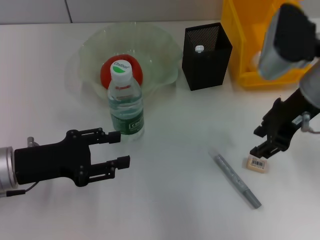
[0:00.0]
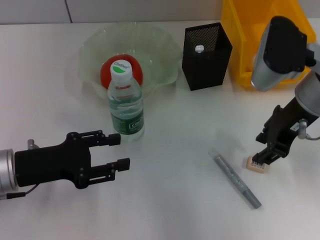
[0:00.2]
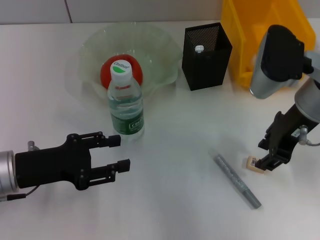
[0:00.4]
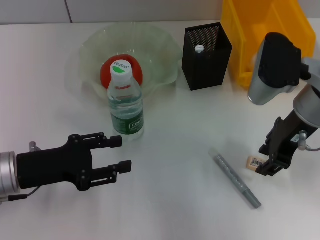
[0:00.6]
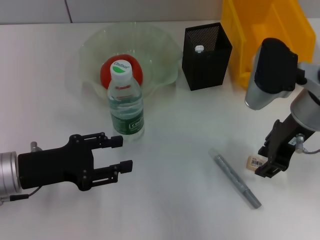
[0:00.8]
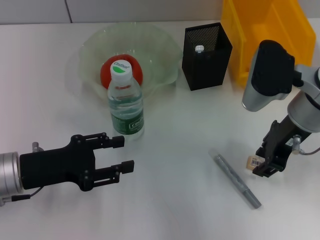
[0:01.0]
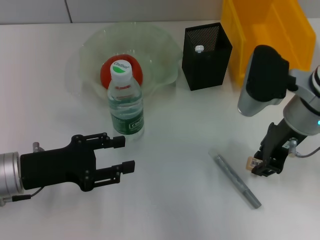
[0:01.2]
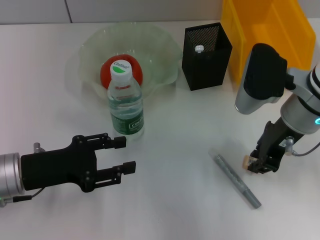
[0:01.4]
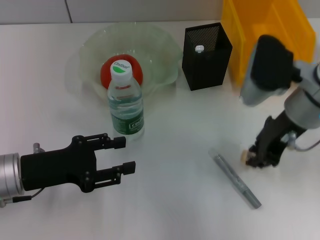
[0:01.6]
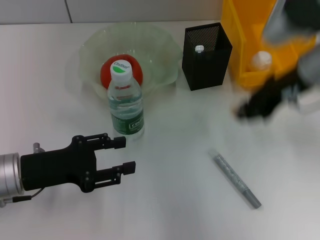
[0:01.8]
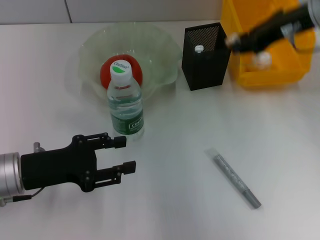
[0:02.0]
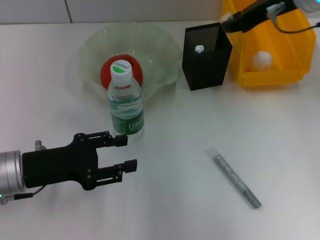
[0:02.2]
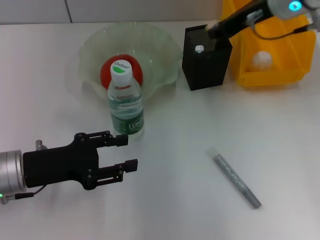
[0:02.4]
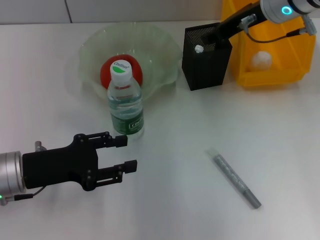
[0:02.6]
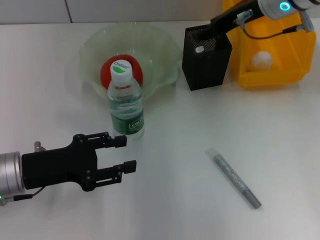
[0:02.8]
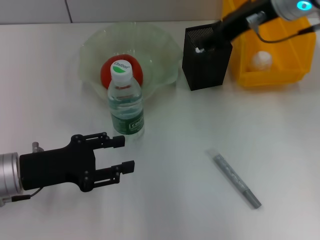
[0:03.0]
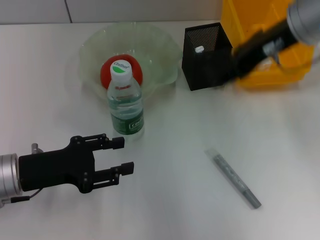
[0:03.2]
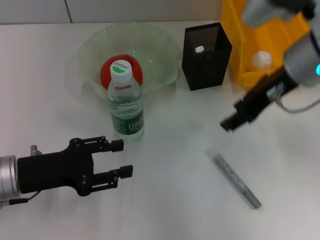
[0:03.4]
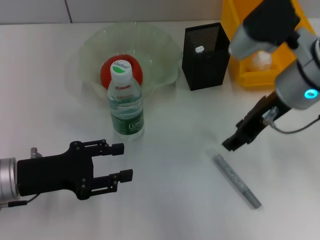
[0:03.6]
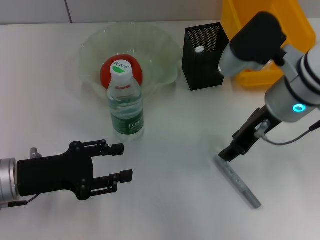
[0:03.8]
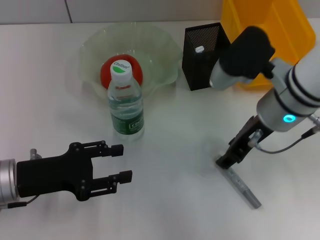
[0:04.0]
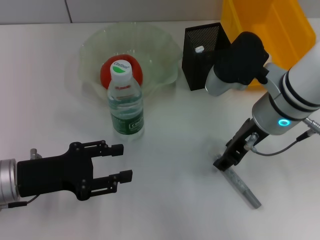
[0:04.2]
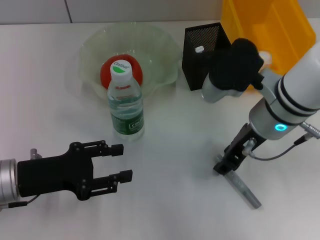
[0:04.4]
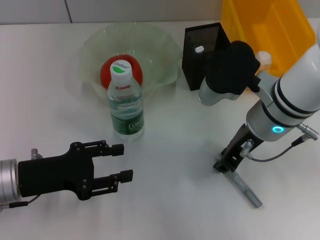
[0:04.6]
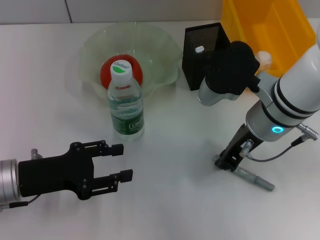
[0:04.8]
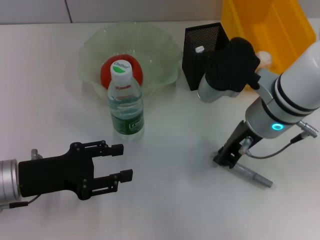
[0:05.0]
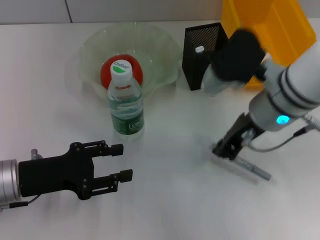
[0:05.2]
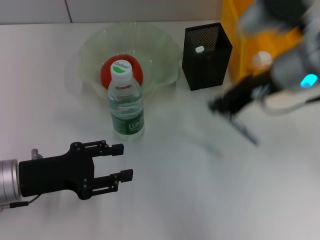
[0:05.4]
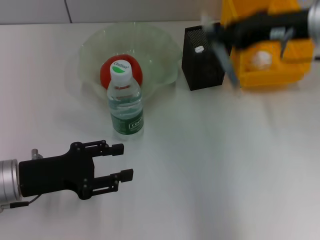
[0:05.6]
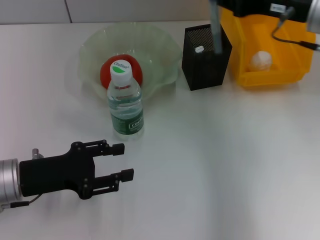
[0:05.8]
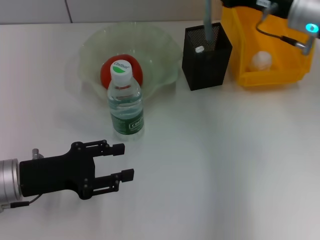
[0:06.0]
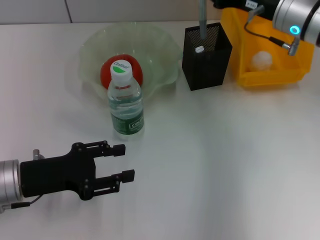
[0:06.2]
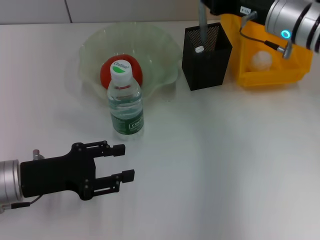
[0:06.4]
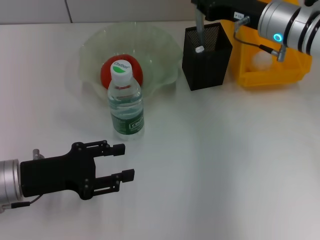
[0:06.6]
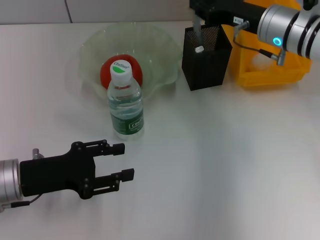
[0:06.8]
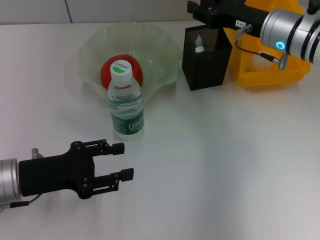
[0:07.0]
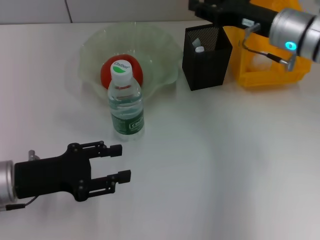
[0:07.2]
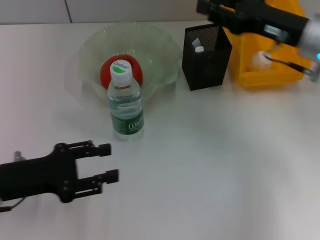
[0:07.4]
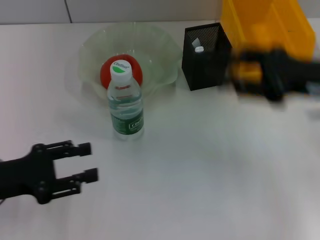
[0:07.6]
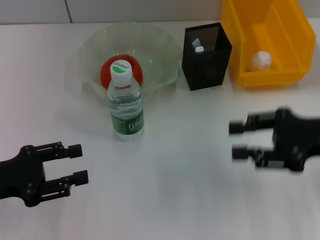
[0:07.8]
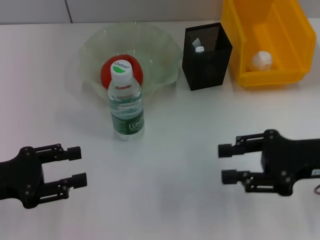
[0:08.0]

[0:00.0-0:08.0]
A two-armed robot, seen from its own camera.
Step, 0:01.4 to 0:02.8: Put the eraser into the pen holder with the right hand.
Step, 0:03.0 to 0:04.6: Grab the gray glue with the right hand.
Step, 0:04.8 to 0:06.8: Place the gray glue into the pen holder with the right hand.
0:00.0 to 0:01.6: The right gripper closes.
0:01.6 to 0:03.2: The right gripper travels upward by approximately 10 cm, and opens its fingers.
0:03.2 to 0:04.8: The right gripper goes approximately 10 cm downward and backward, and closes.
0:04.8 to 0:06.4: The right gripper goes about 10 cm forward and to the right.
0:06.4 to 0:08.0: The left gripper is displaced to the left by approximately 5 cm; the right gripper moves backward and to the right, approximately 20 cm, and opens up.

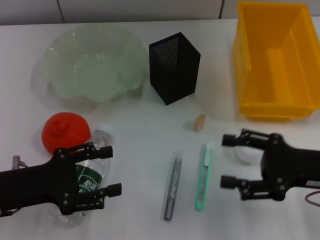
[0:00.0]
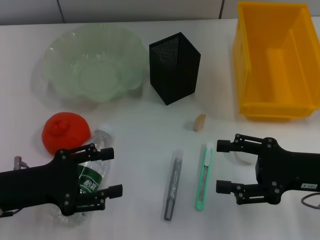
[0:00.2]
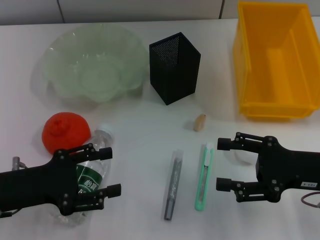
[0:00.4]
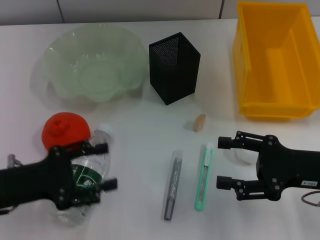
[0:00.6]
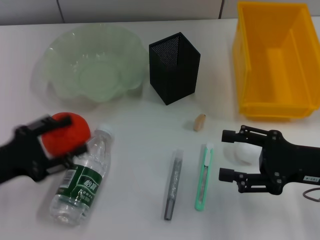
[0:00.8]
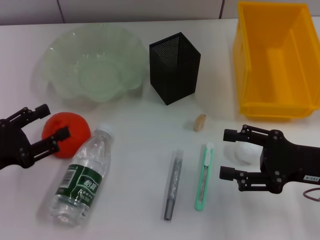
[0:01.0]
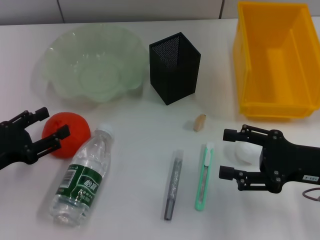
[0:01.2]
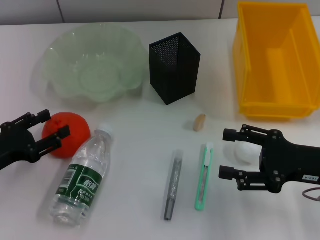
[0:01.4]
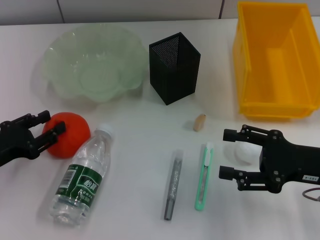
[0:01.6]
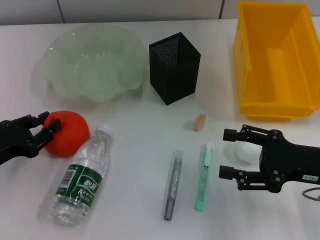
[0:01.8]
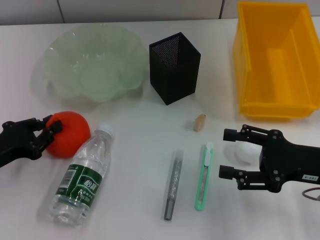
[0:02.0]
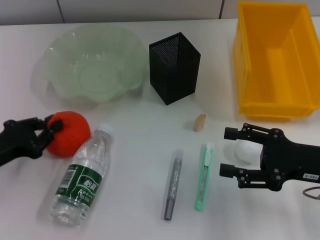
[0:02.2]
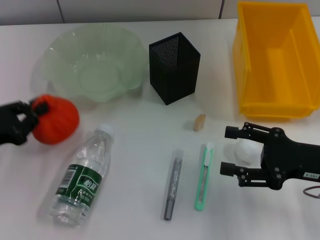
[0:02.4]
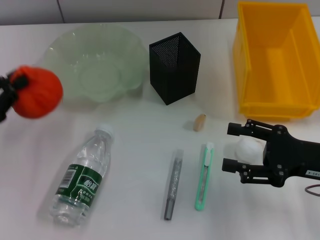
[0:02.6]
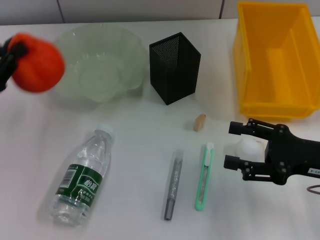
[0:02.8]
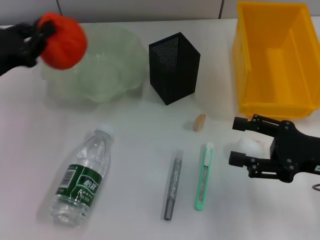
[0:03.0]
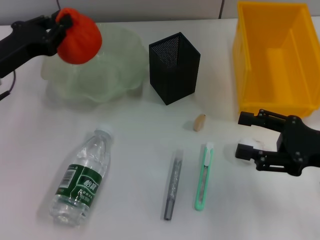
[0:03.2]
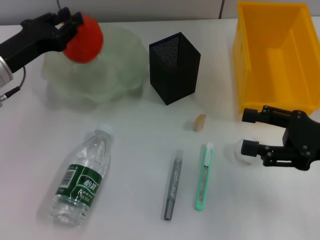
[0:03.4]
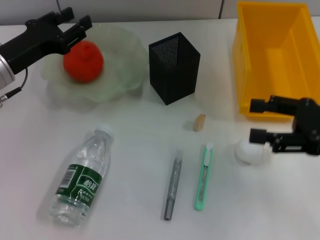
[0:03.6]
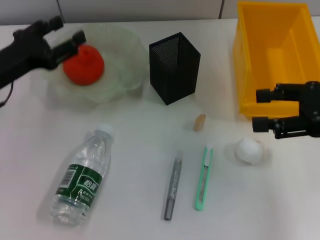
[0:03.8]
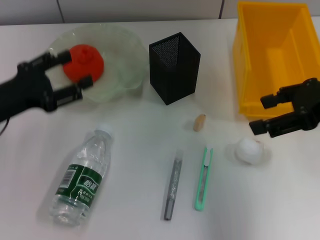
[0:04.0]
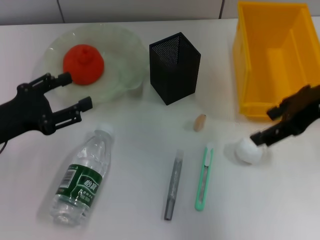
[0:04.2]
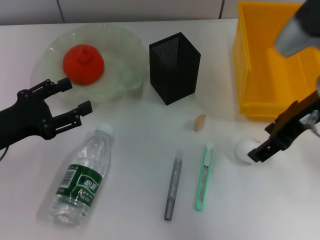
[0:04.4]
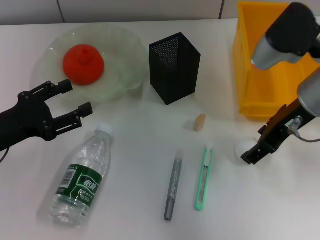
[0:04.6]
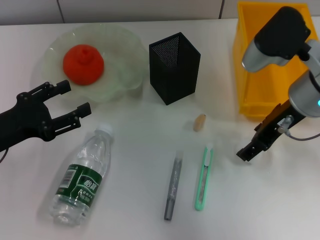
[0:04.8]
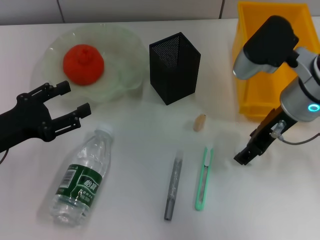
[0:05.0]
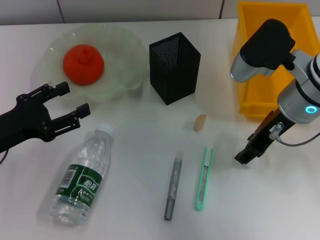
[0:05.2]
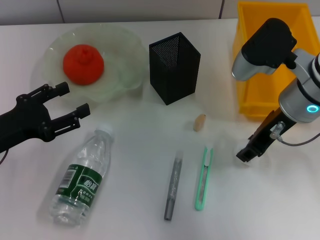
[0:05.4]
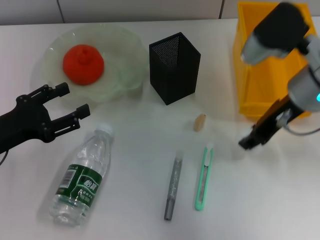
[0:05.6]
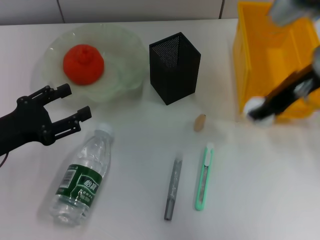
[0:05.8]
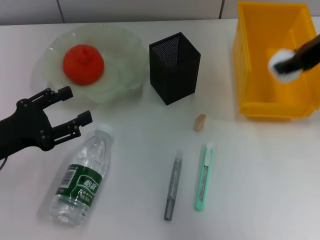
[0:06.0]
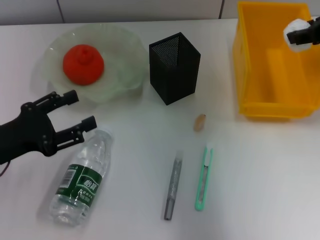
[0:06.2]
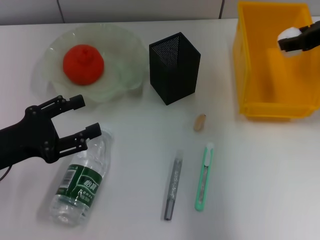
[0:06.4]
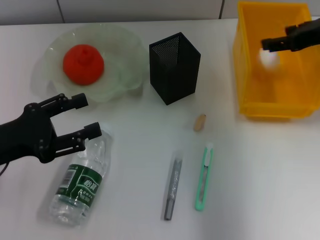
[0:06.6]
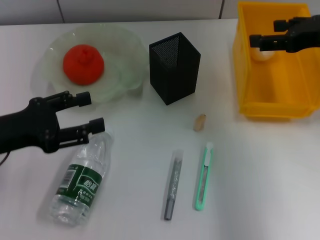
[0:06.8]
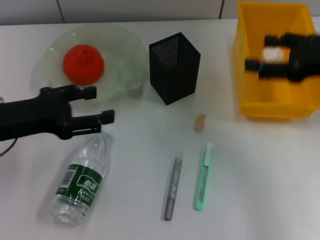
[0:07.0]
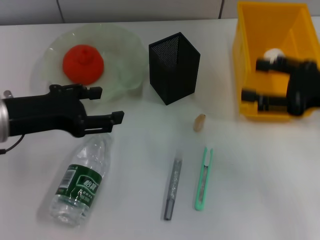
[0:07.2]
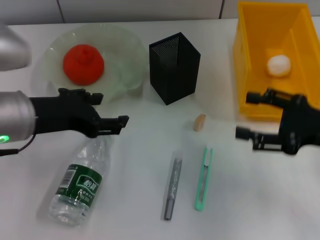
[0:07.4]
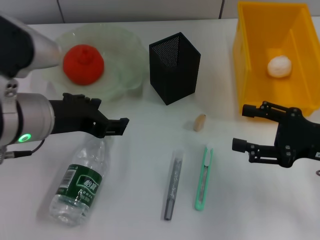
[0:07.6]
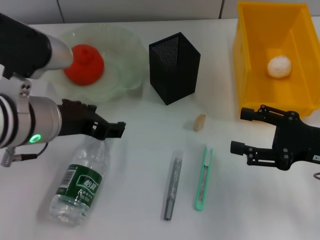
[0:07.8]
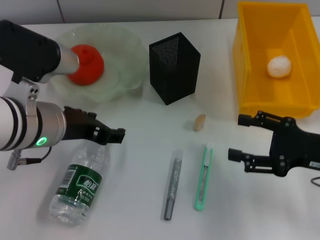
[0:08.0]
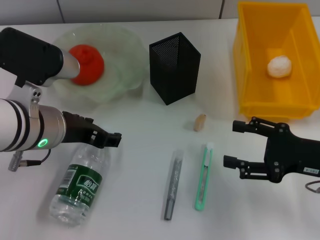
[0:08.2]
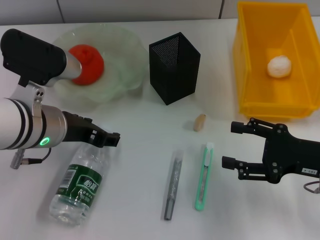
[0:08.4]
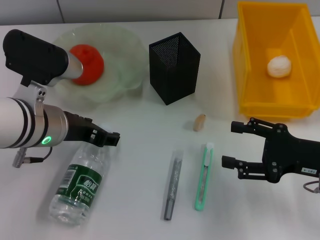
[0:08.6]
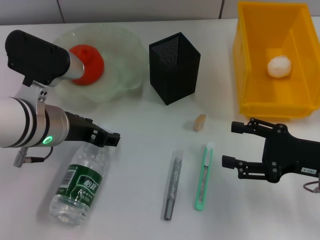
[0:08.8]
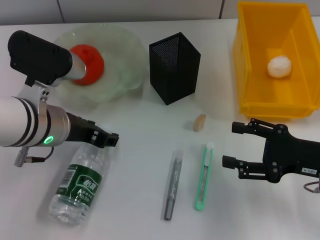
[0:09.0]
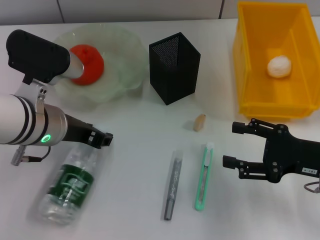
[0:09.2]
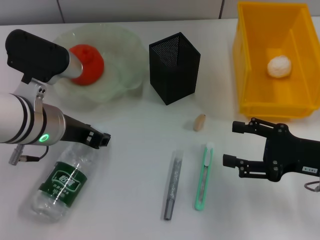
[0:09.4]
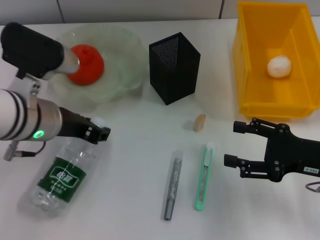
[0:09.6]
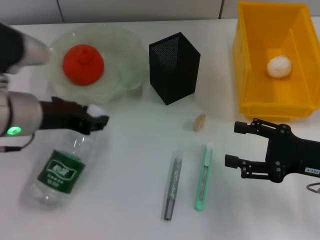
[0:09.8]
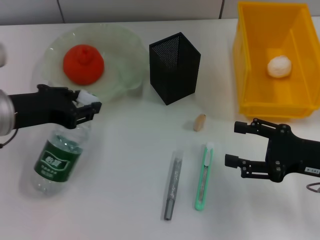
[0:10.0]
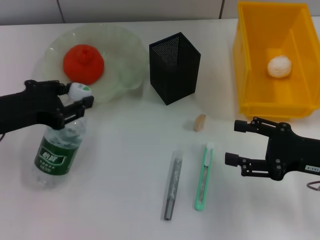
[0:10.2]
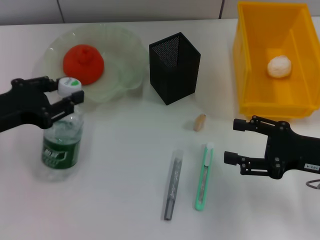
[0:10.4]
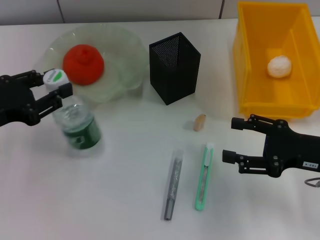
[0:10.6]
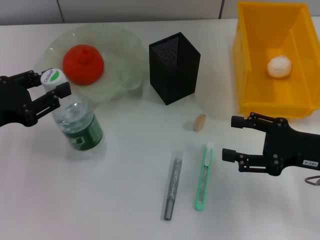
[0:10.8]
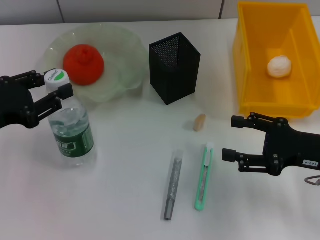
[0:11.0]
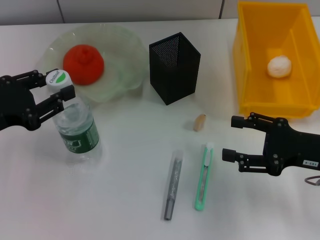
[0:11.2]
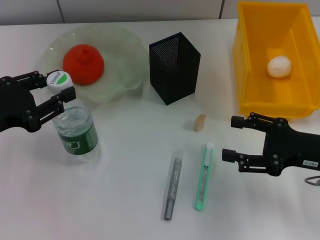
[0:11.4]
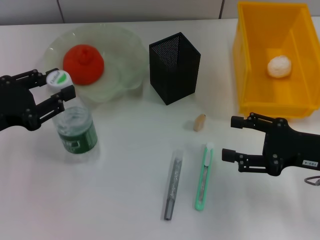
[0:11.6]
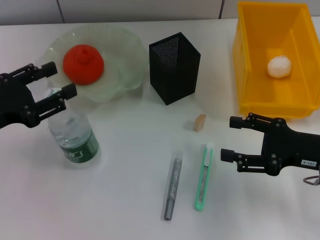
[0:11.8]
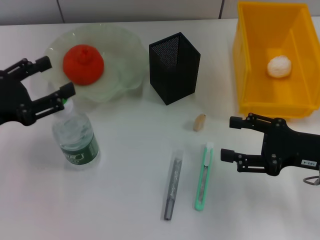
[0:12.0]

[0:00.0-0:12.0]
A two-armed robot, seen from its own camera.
Step, 0:00.0 to 0:02.0: Grab the orange with the left hand.
Step, 0:02.2 to 0:03.6: Place the orange into the fruit bowl with the left hand.
Step, 0:04.0 to 0:05.2: Grab the paper ball with the right hand.
Step, 0:05.4 to 0:06.8: Place the paper ball into the trash can with the right hand.
Step, 0:07.0 to 0:09.2: Grab the water bottle with the left hand.
0:00.0 to 0:01.6: The left gripper shifts some 5 cm to the left.
0:01.6 to 0:03.0: The left gripper is displaced forward and upward by about 10 cm, and closes up.
0:03.0 to 0:04.4: The left gripper heads backward, covering roughly 5 cm, and opens up, while the right gripper heads upward, forward and to the left, covering roughly 15 cm.
0:04.4 to 0:06.0: The right gripper heads upward, covering some 5 cm, and closes up.
0:06.0 to 0:07.6: The left gripper goes roughly 15 cm to the right and upward. The right gripper travels downward and backward by some 20 cm, and opens up.
0:07.6 to 0:09.0: The left gripper shifts by roughly 5 cm.
0:09.0 to 0:10.4: The left gripper heads to the left, covering about 10 cm, and closes up.
0:10.4 to 0:12.0: The left gripper opens up.

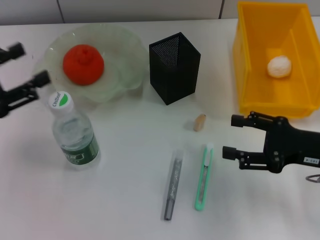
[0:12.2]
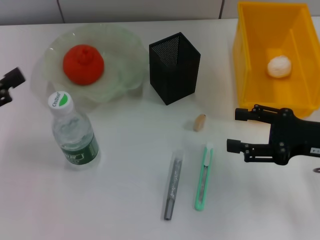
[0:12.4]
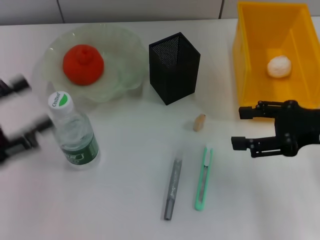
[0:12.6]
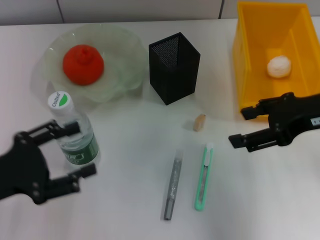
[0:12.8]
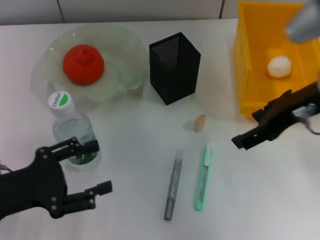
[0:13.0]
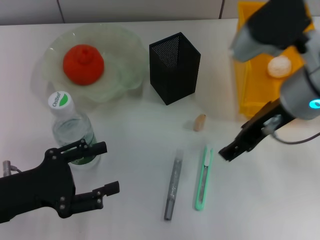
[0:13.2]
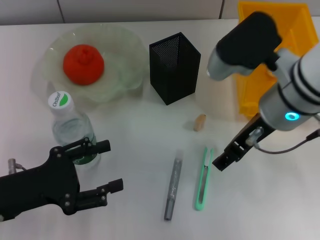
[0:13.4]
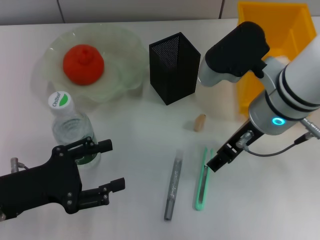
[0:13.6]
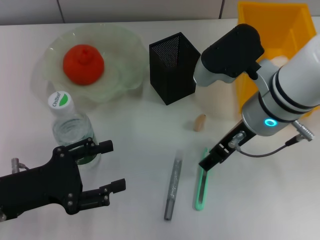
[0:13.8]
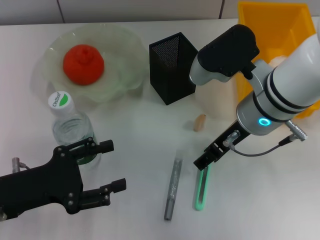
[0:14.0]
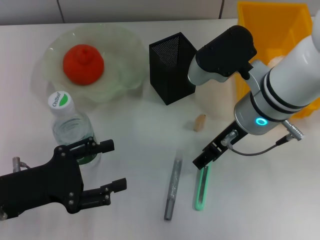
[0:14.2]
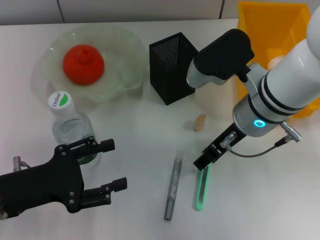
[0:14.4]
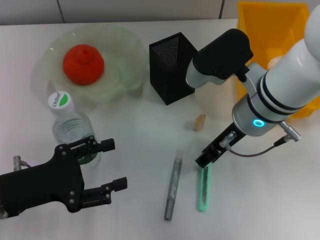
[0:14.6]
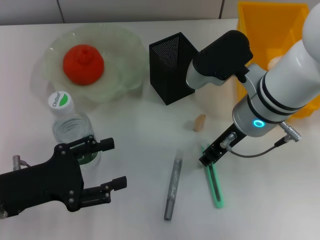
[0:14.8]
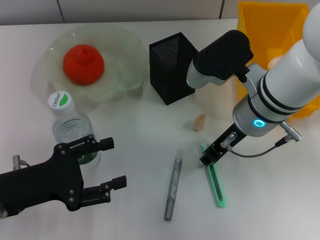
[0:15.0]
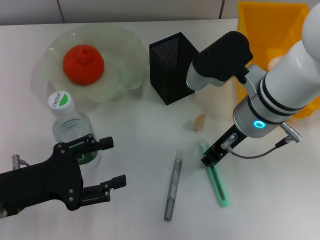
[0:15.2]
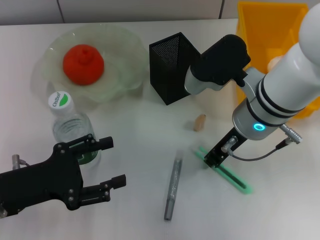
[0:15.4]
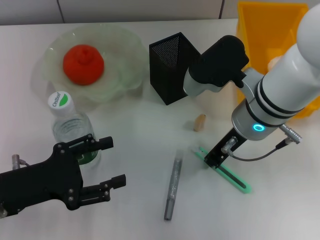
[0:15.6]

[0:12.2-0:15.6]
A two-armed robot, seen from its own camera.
0:12.2 to 0:13.8: The left gripper travels downward and to the right by about 10 cm. Meanwhile the right gripper moves to the left, upward and forward, roughly 20 cm.
0:13.8 to 0:15.6: The right gripper closes up.
